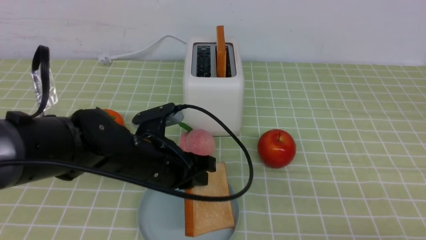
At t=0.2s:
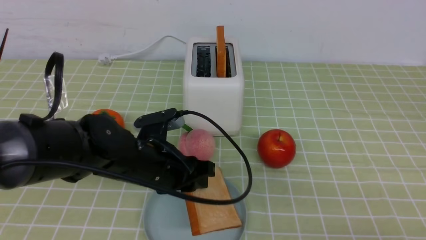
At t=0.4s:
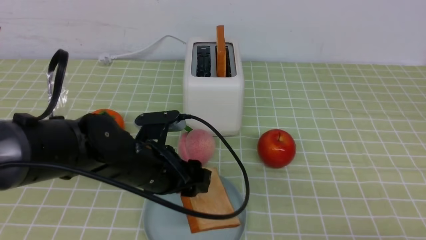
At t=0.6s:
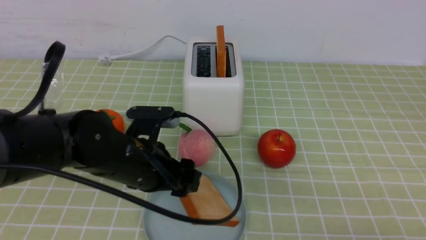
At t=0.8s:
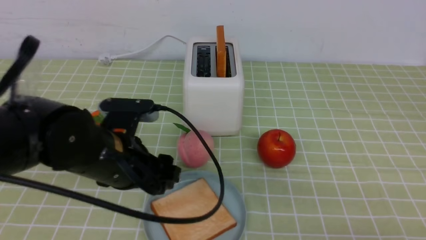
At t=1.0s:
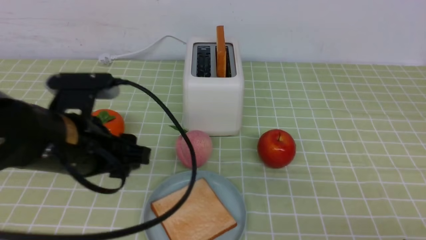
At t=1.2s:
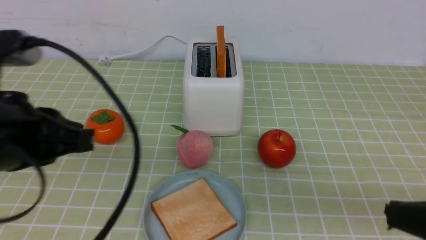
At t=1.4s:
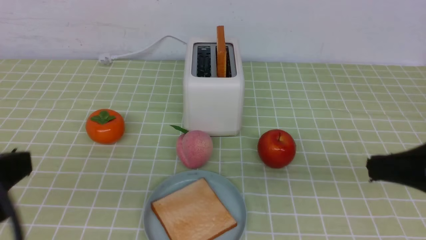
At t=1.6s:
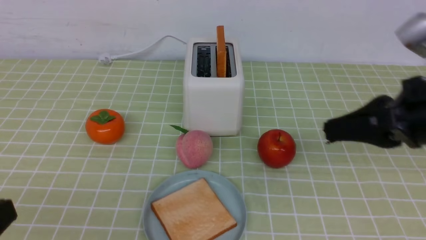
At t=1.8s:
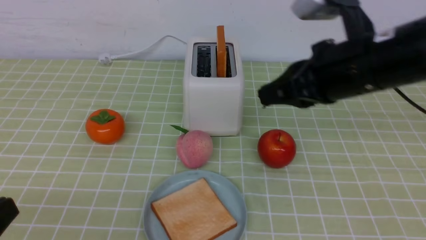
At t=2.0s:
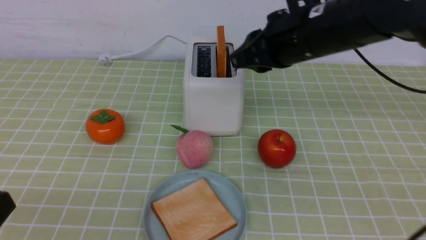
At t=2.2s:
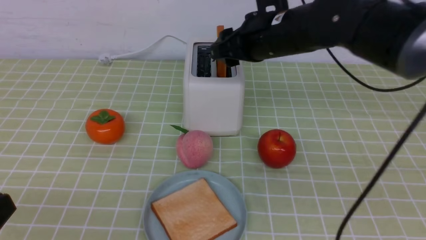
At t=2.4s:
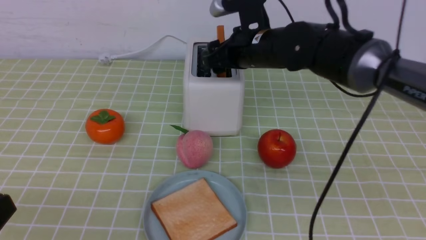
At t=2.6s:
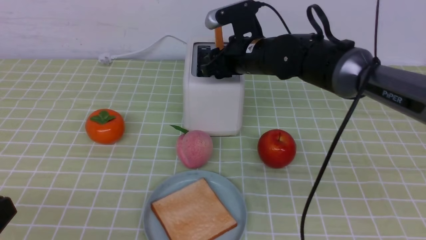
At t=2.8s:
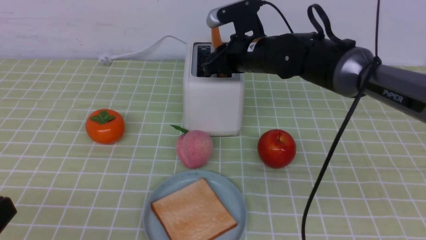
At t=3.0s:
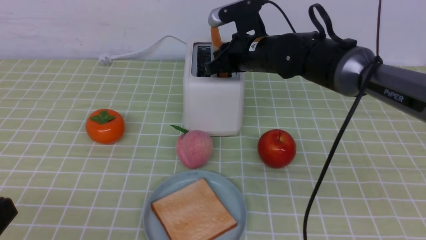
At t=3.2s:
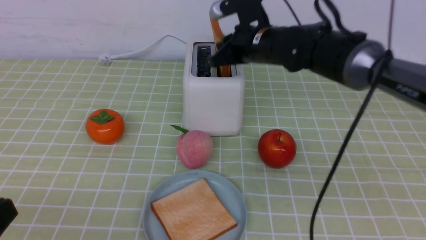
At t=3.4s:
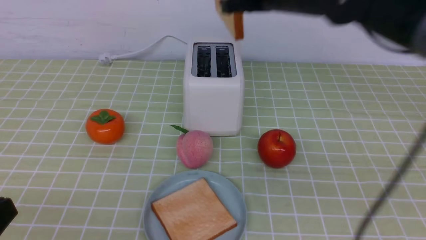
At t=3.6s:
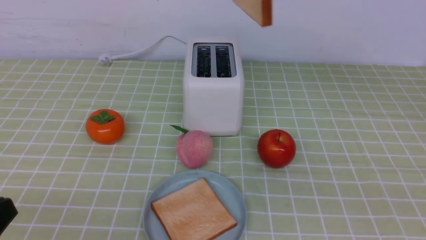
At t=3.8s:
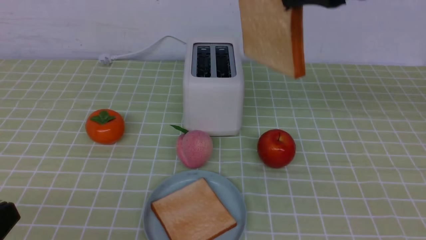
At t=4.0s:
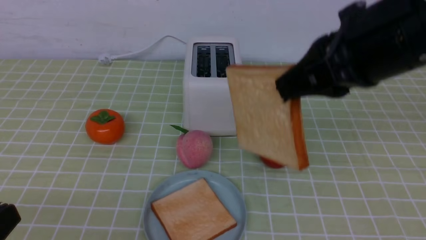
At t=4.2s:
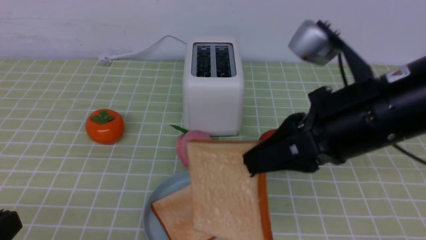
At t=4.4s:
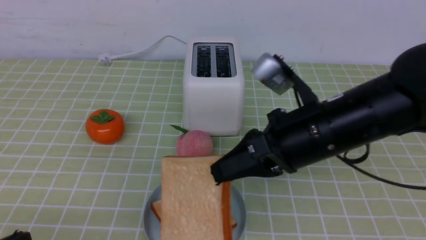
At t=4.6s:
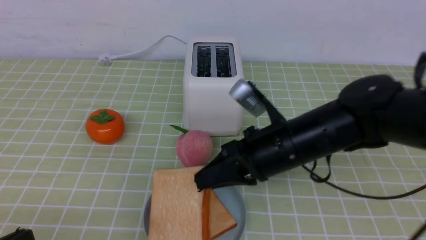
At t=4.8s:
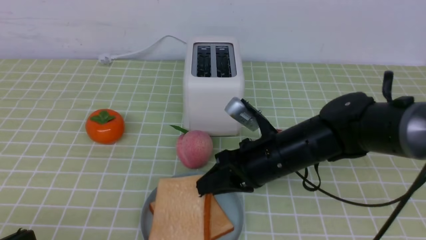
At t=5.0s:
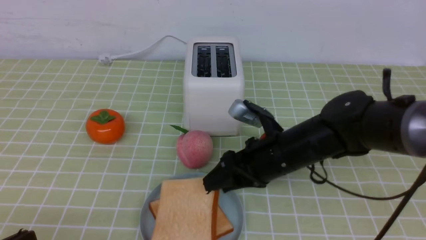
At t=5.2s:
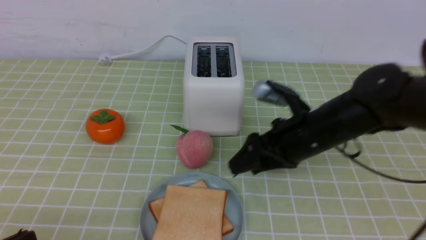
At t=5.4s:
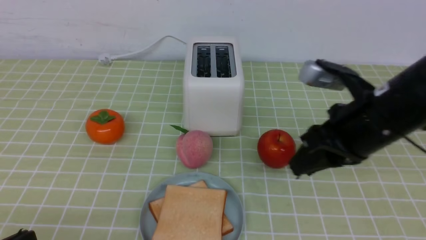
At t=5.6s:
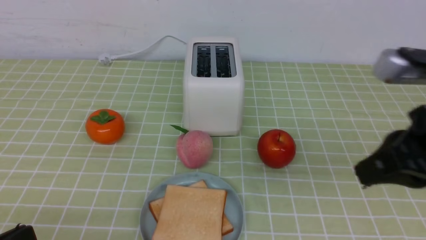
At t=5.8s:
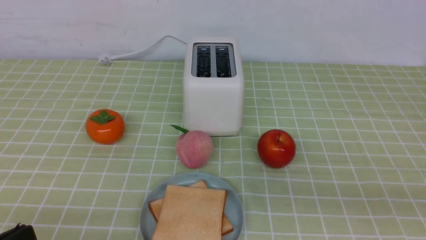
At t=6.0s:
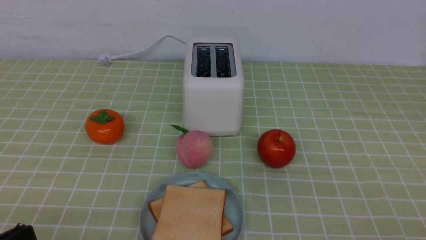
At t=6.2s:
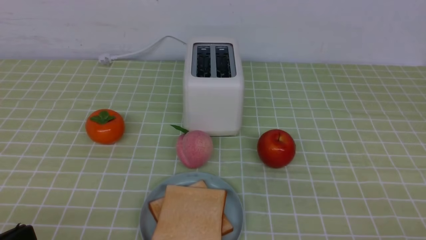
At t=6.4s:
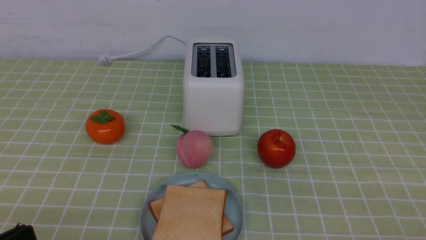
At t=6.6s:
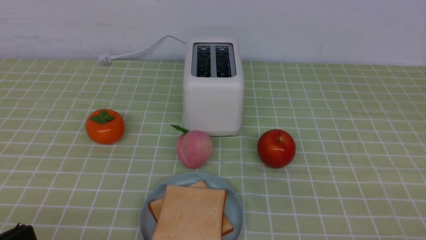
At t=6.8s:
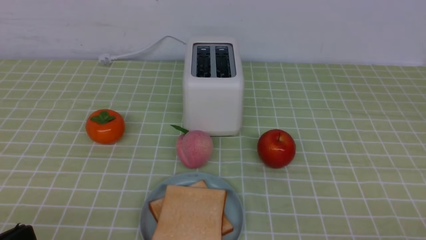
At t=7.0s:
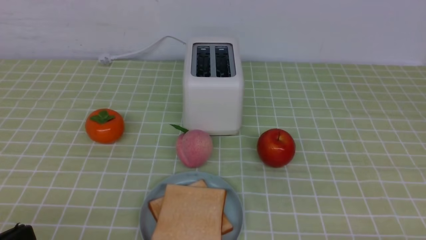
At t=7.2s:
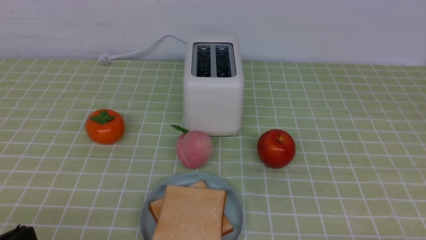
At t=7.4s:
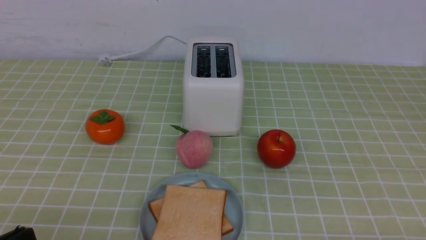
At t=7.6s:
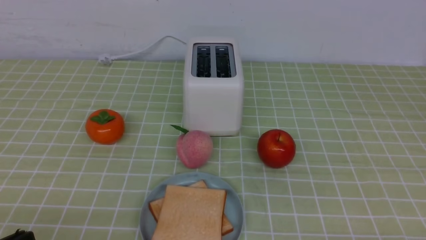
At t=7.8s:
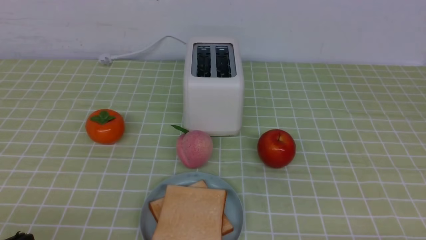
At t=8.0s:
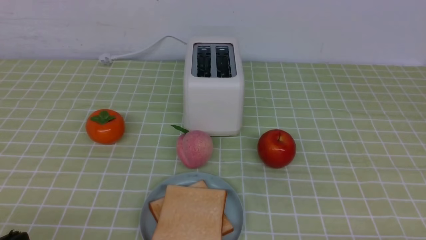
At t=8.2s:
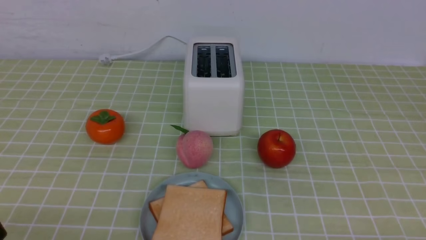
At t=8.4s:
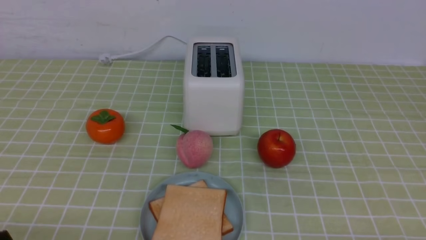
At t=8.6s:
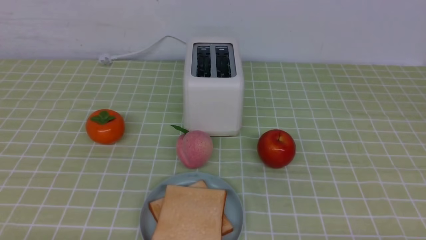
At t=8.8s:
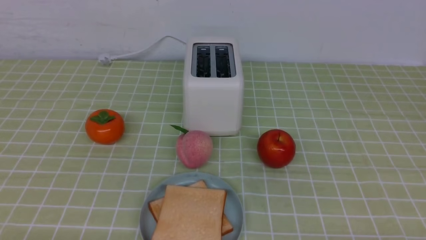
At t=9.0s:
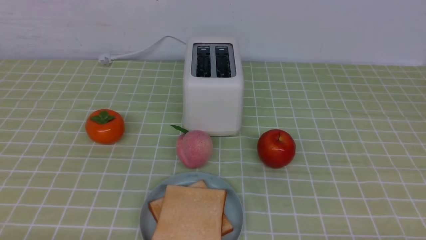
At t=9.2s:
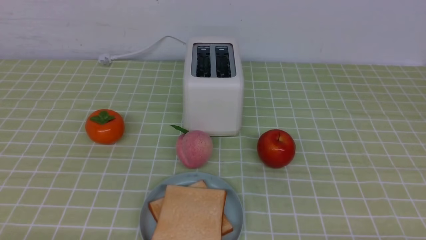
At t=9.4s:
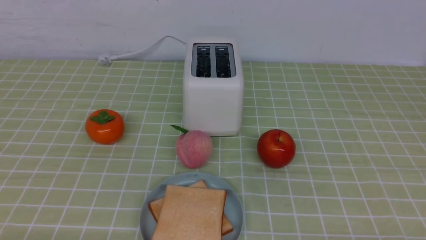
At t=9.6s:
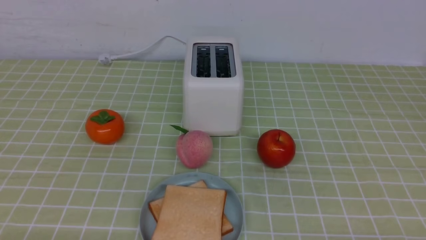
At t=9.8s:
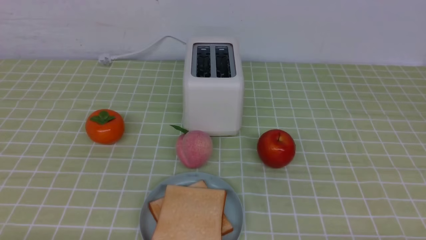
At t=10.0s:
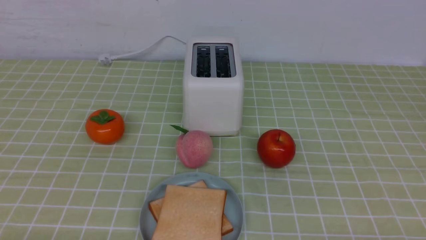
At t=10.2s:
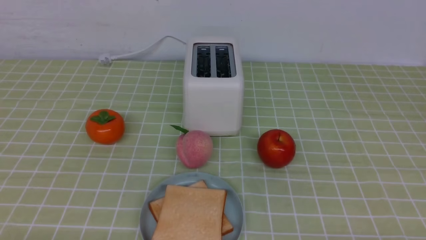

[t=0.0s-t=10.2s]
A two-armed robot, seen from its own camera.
Task of the whole recording: take toasted bread from bread machine on green coffee tablecloth place on plate.
Step, t=1.2s to t=3.4s: use the right arm to take out a slice of bread.
Step, t=3.6s to t=5.4s: use the right arm to put a slice of bread into the plate.
t=0.0s to t=1.4s: The left gripper heads backward, to the left and upward, covering roughly 25 cm, and opens, then closes again. The right gripper heads forward and upward, covering some 15 cm.
t=1.4s to t=3.0s: The left gripper goes some 5 cm downward. The right gripper travels forward and to the left by approximately 35 cm, and opens and closes again.
t=3.0s to t=4.4s: The right gripper travels backward by about 20 cm.
t=4.4s to t=5.8s: The right gripper moves backward and to the right, roughly 25 cm, and opens and closes again.
t=5.8s to t=7.2s: The right gripper goes about 20 cm downward.

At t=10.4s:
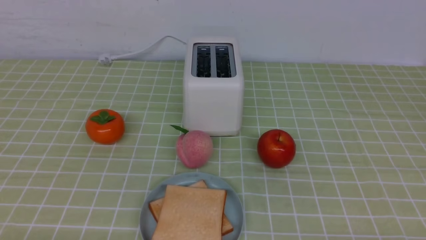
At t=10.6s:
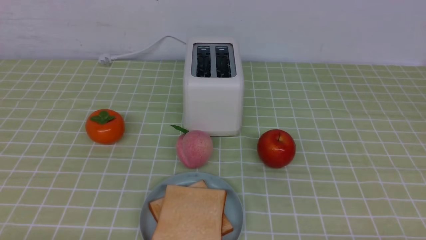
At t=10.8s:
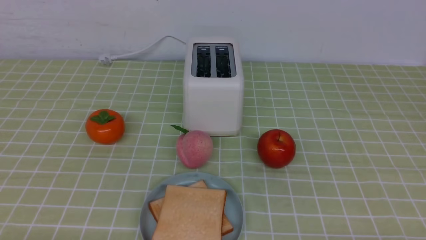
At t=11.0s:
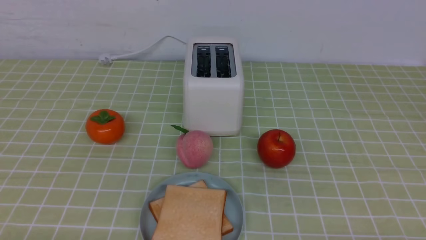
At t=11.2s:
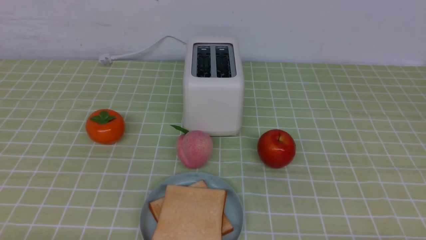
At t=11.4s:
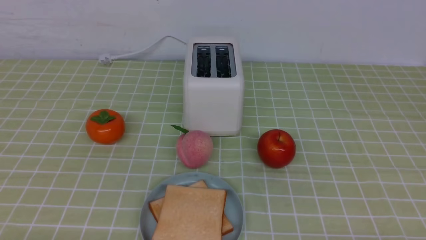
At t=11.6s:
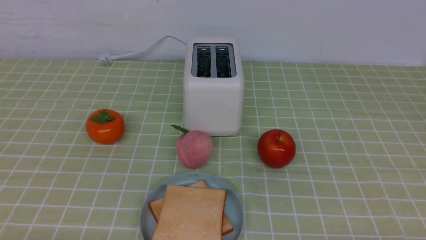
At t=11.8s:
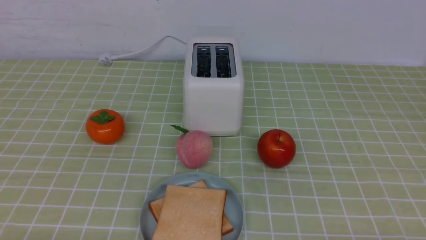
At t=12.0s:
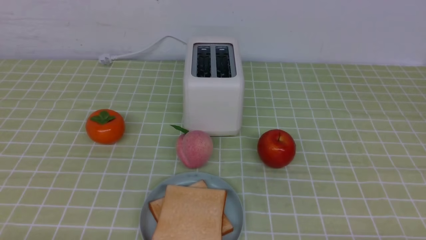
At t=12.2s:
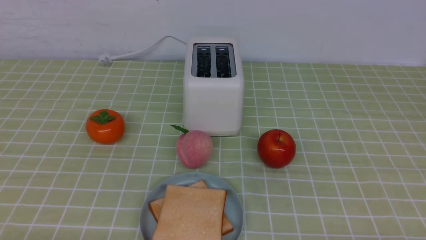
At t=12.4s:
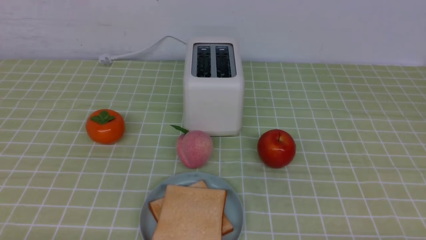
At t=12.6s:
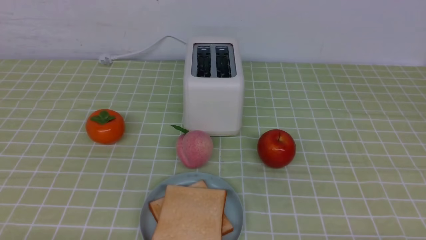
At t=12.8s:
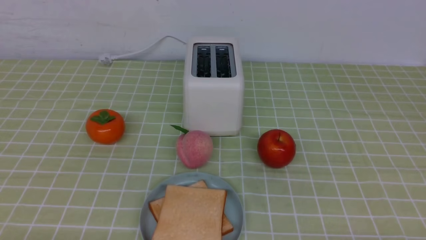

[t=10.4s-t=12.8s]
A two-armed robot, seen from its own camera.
Task of the whole recording: take toasted bread from bread machine on green coffee tablecloth place on plate.
t=10.4s to t=12.8s: Both grippers stay put.
